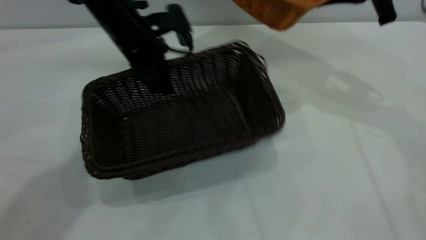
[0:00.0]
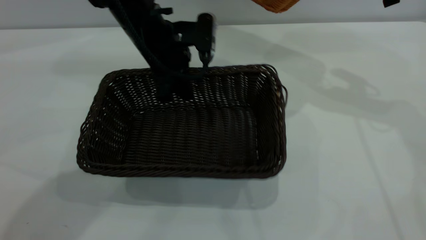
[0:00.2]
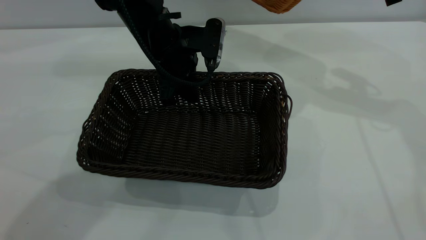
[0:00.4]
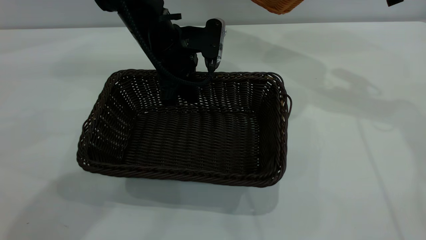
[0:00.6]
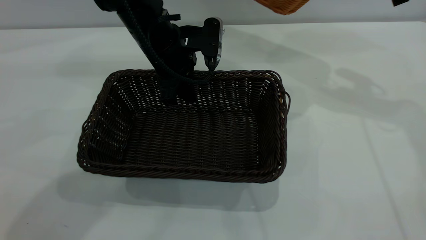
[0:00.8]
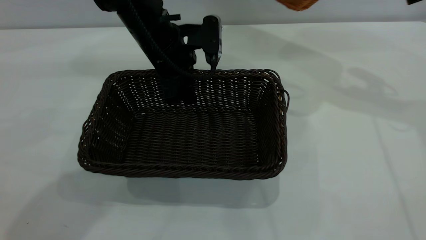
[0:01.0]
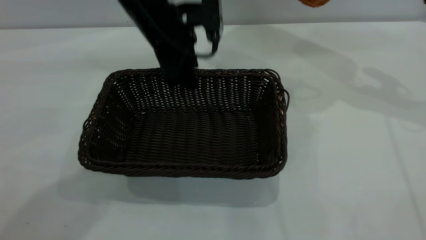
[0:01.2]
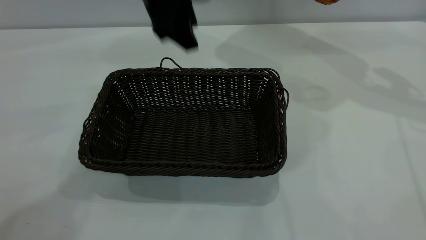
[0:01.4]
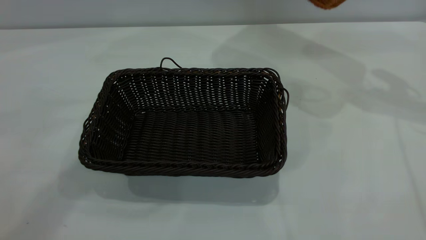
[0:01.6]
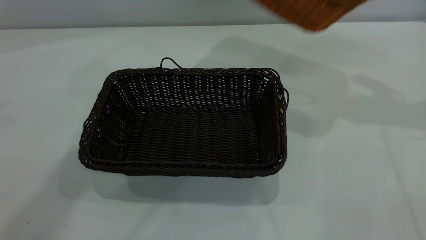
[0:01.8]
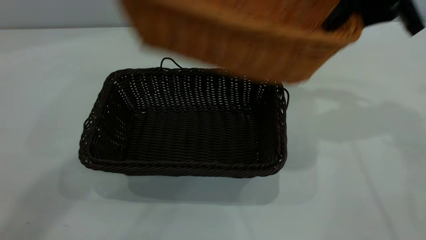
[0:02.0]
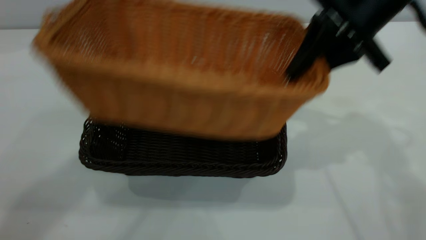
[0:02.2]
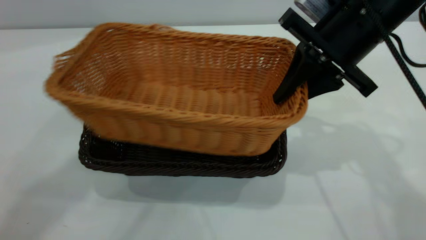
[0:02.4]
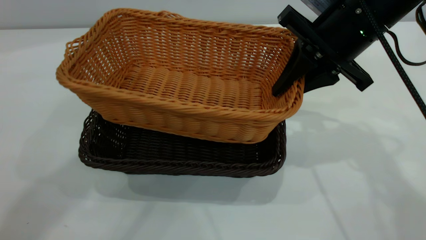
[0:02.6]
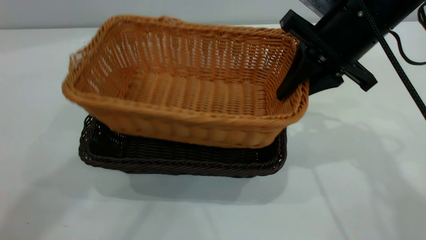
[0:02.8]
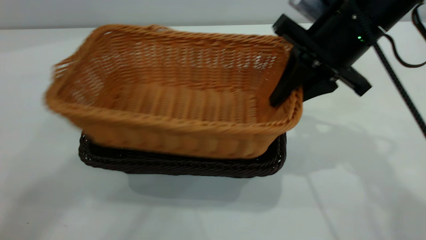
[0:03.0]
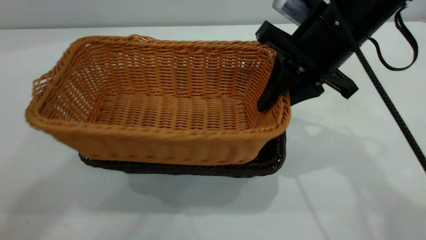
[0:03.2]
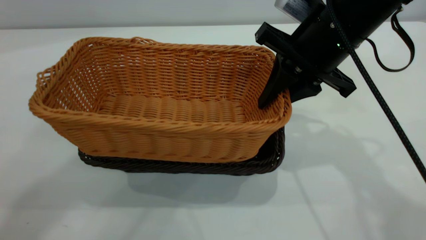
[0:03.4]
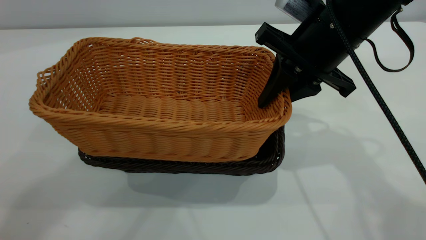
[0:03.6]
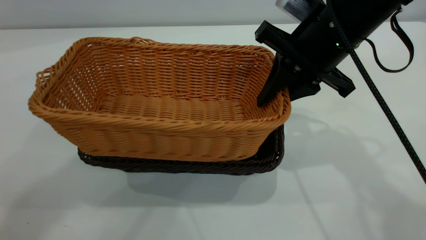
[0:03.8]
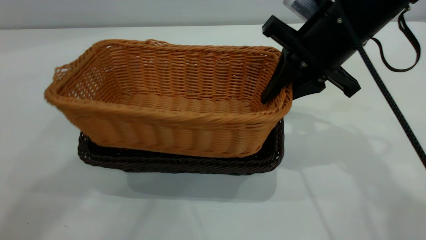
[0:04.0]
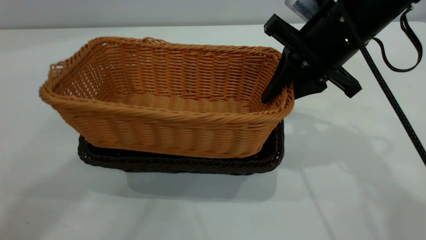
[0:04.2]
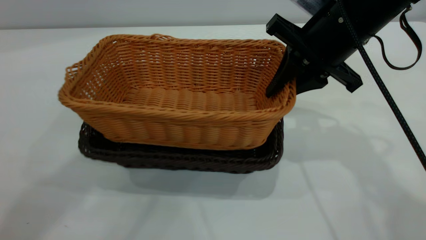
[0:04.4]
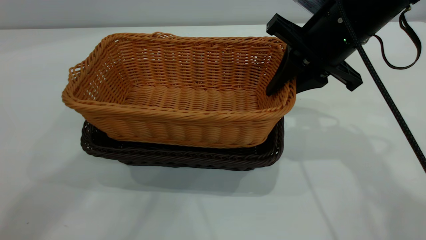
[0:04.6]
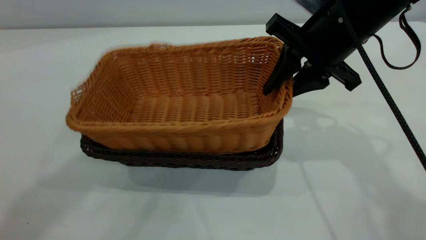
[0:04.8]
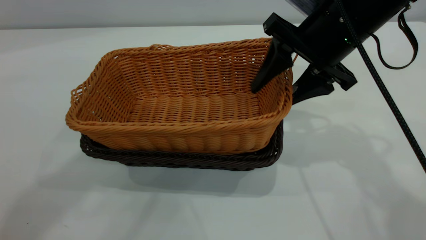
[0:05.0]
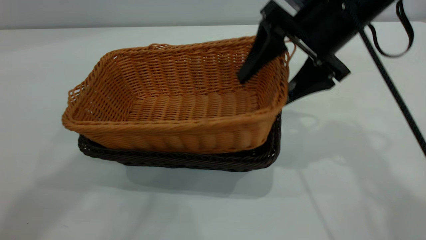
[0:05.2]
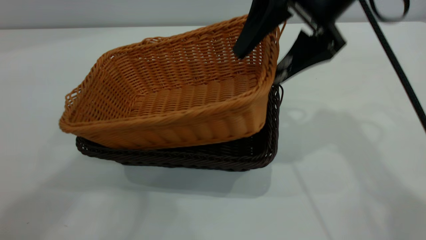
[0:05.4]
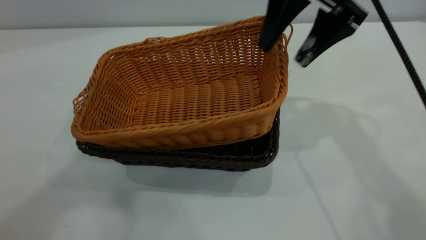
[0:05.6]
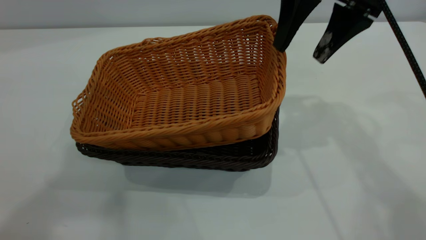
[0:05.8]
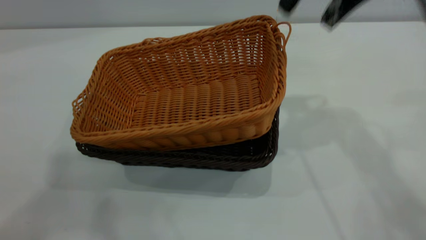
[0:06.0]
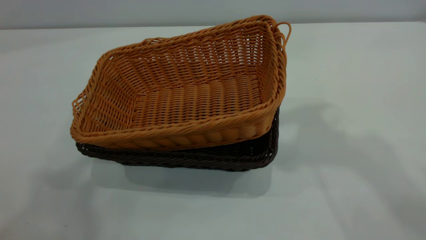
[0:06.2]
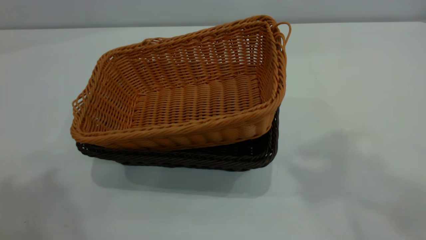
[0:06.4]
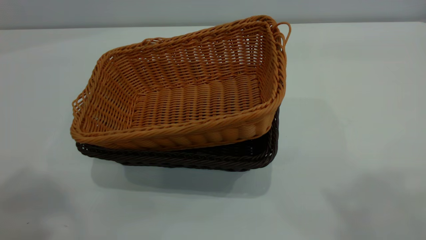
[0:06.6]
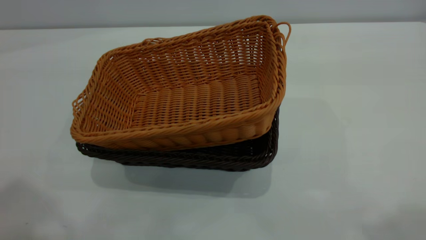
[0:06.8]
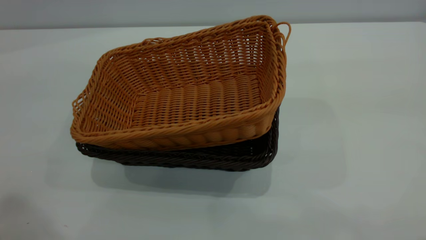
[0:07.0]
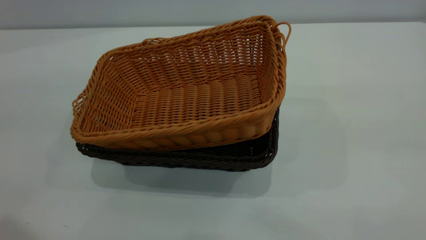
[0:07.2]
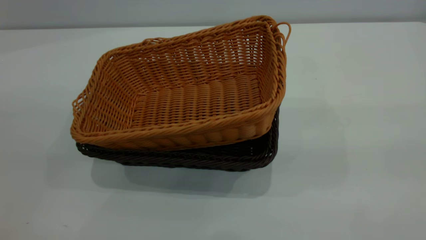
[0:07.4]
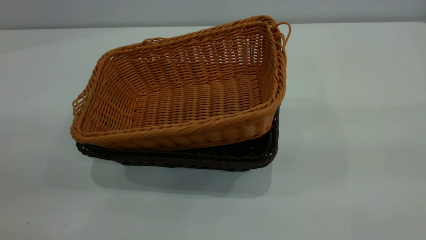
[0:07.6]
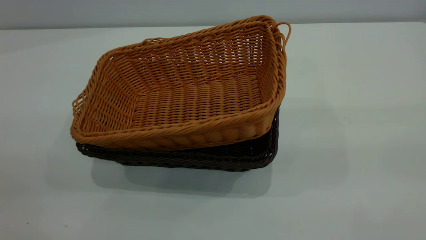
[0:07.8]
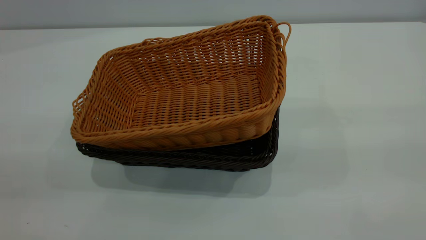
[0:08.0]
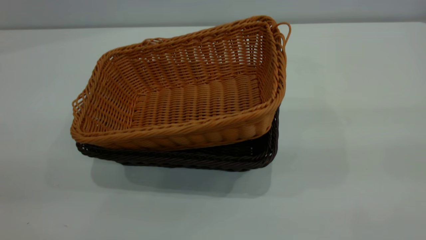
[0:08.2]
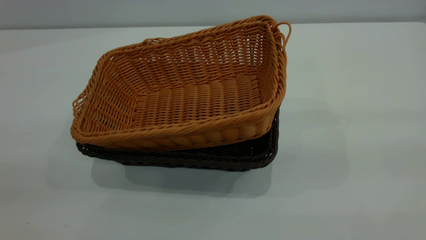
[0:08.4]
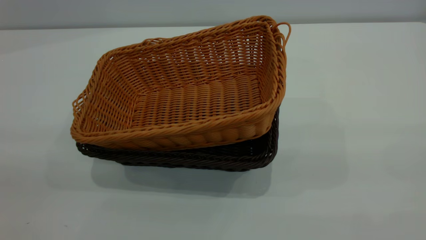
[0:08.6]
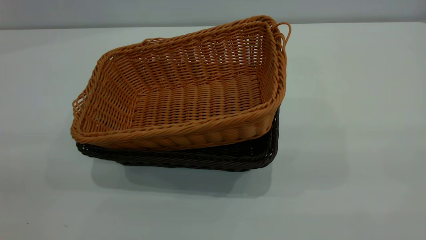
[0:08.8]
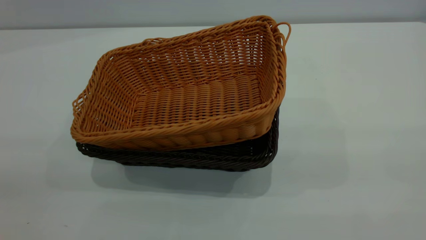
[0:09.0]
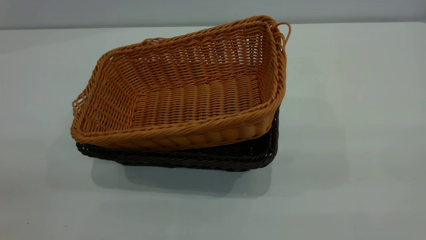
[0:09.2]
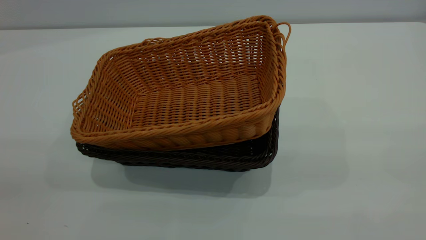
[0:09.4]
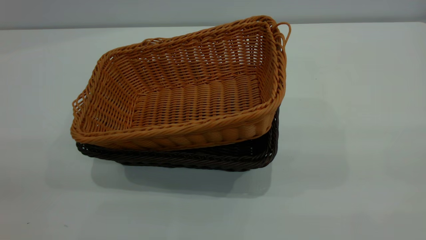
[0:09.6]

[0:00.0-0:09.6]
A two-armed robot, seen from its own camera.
Task of the whole recording: the left gripper grasp the black basket and place it in the center of the table, the right gripper grasp the brown basket and place it inside the black one.
Step, 0:00.0 to 0:01.4: Move the dark basket to the center of view.
Step, 0:01.6 to 0:05.8: Place the light basket on the dark basket.
0:00.0 to 0:01.6: The right gripper shifts some 5 cm to the right. Meanwhile the left gripper travels upward by roughly 25 cm, and opens.
0:01.6 to 0:03.2: The left gripper moves upward and backward, approximately 15 cm, while the right gripper moves to the left and backward, approximately 20 cm.
0:04.8 to 0:06.4: The left gripper heads backward, to the left and upward, covering roughly 15 cm. The right gripper moves upward, roughly 30 cm, and opens up.
